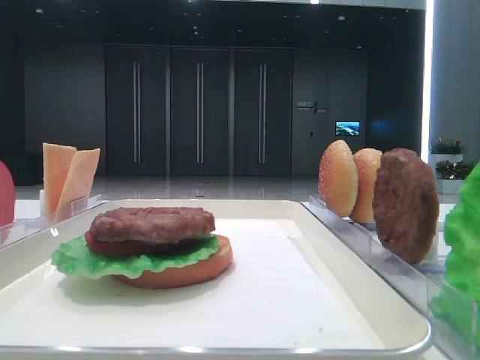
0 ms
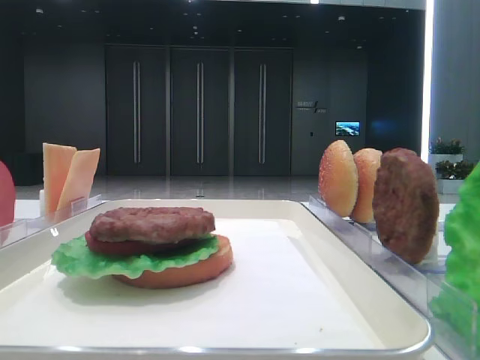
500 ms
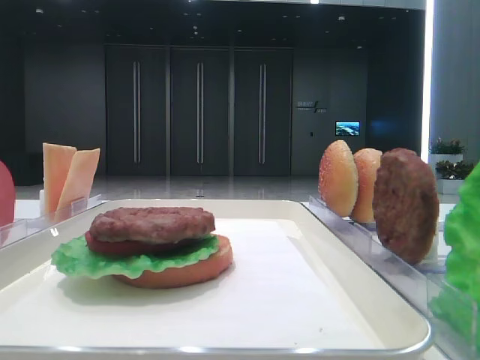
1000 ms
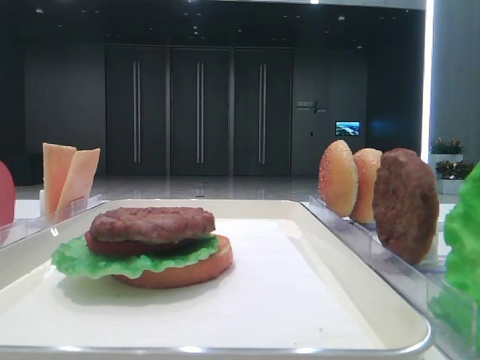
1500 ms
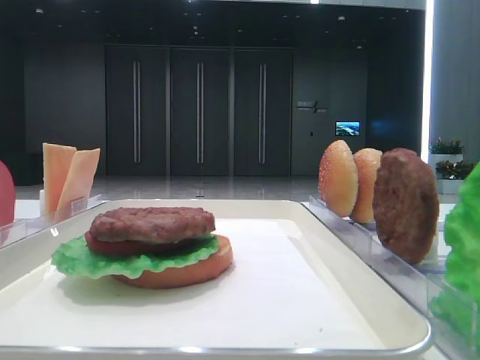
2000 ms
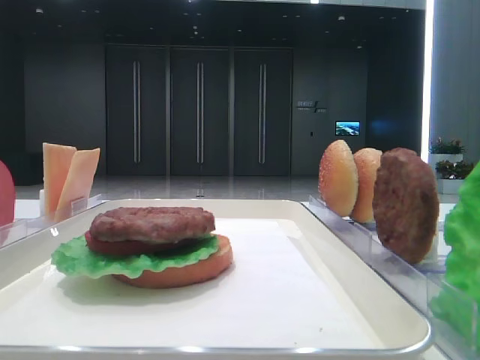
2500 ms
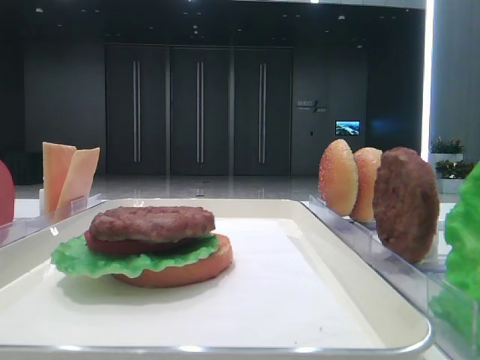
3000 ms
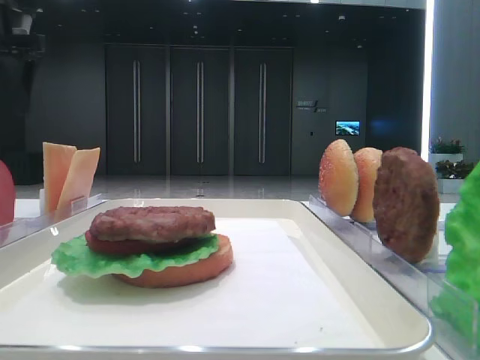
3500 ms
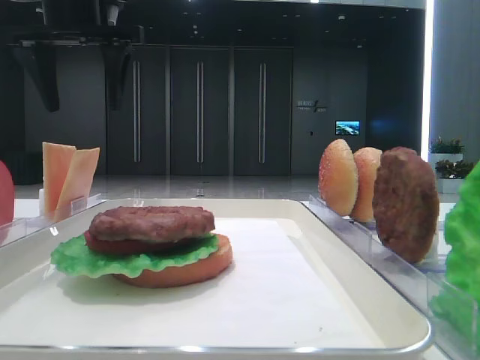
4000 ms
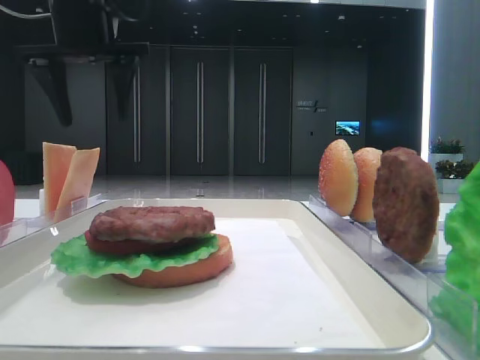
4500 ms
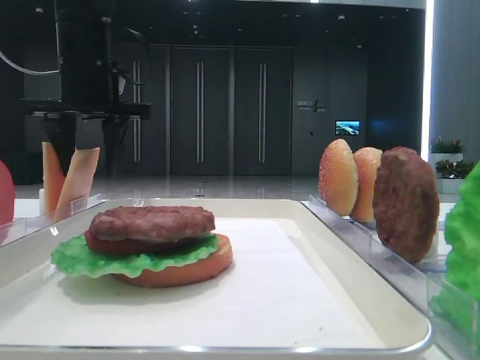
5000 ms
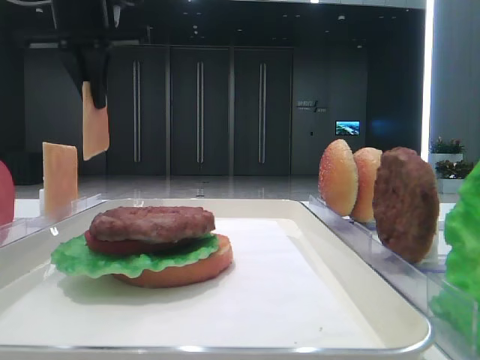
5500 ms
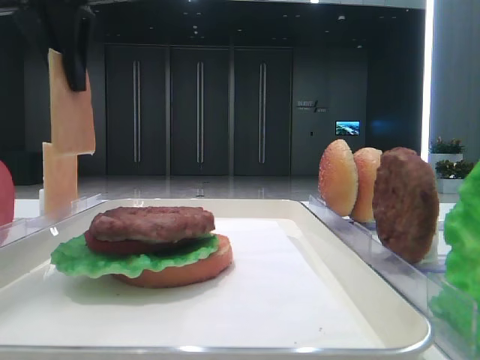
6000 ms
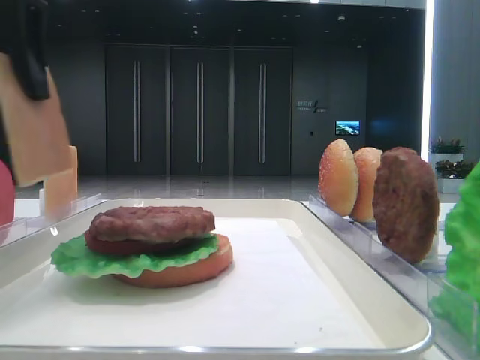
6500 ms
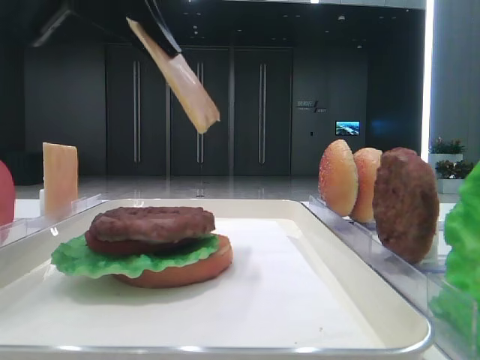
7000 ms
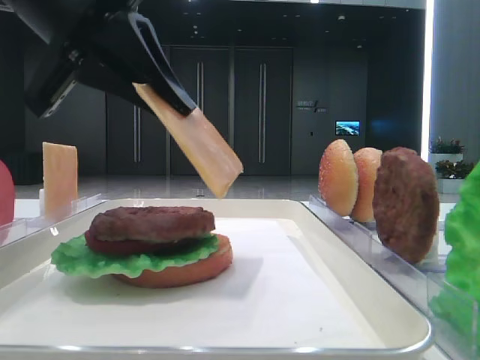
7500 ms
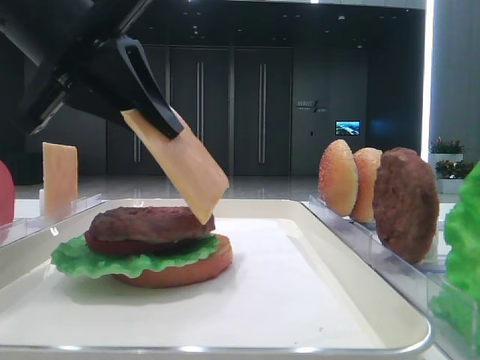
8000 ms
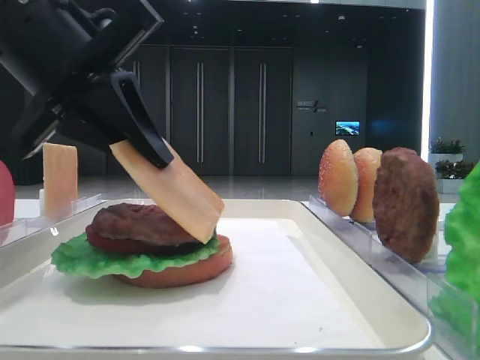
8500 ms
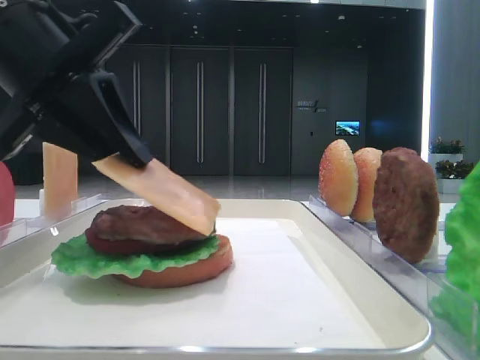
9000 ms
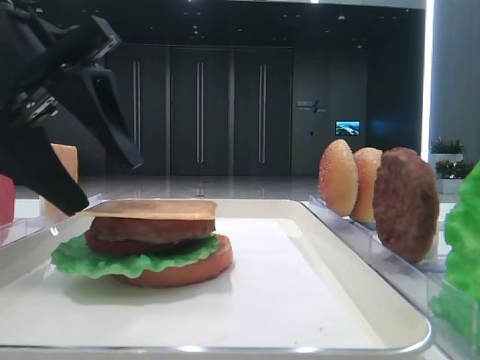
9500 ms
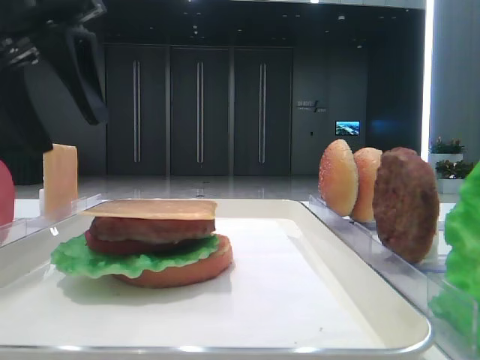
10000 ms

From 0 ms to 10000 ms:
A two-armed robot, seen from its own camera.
Step, from 0 ms to 5000 ms: Pick up the cheese slice with the left hand.
Step, from 5500 ms to 9000 ms: Place the cheese slice on the patty with the left hand.
From 2000 ms to 4000 ms: The left gripper shifts some 40 cm forward.
From 4000 ms to 6000 ms: The left gripper travels backward by roughly 10 cm, and closes.
From 6000 ms to 8000 ms: The left gripper heads downward and backward, covering approximately 10 cm.
From 8000 ms to 10000 ms: The left gripper ends up approximately 5 cm from where it was, and opens.

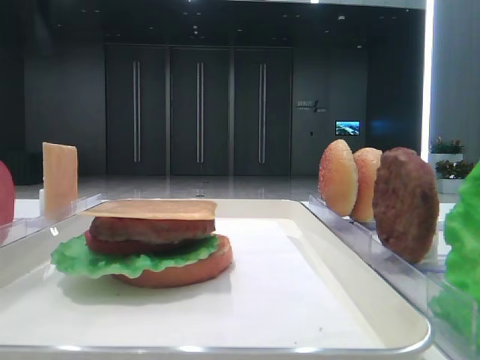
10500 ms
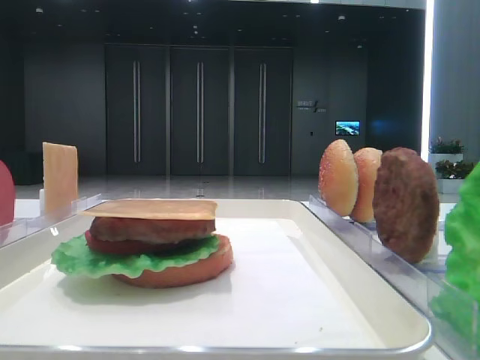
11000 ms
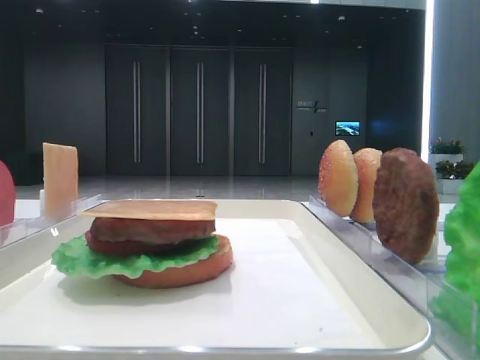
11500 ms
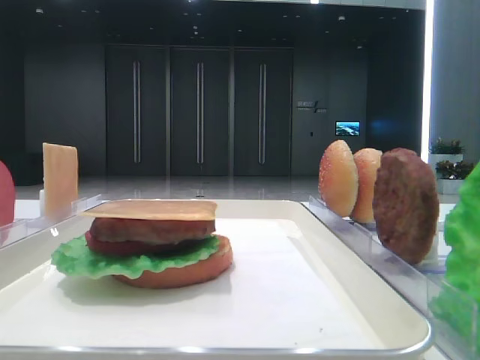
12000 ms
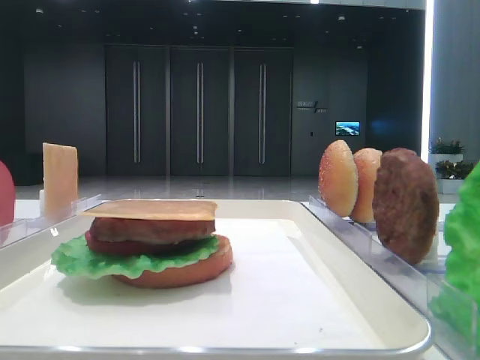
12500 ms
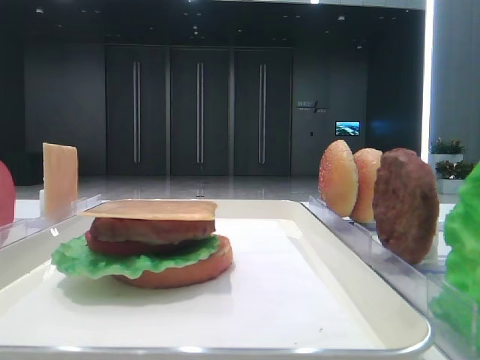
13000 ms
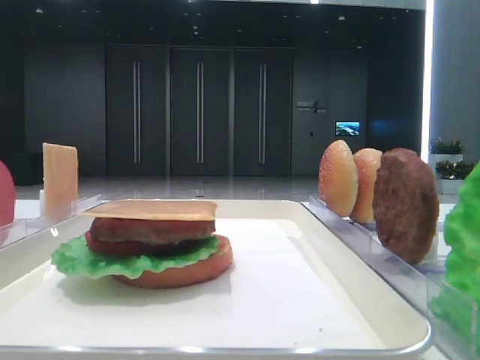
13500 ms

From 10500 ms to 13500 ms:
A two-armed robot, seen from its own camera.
From 10500 ms to 12000 ms: The left gripper shifts about 30 cm backward.

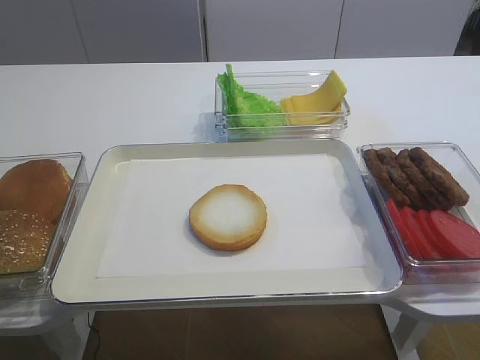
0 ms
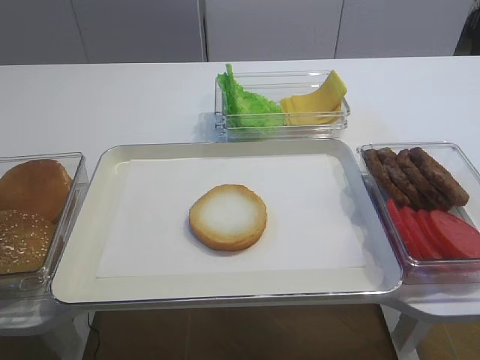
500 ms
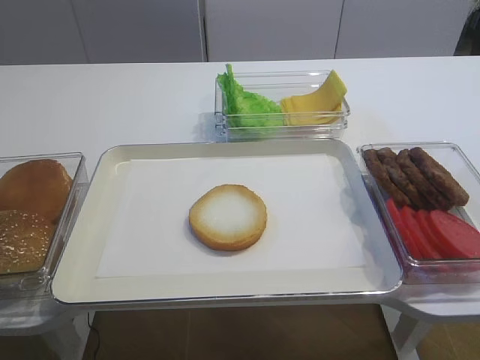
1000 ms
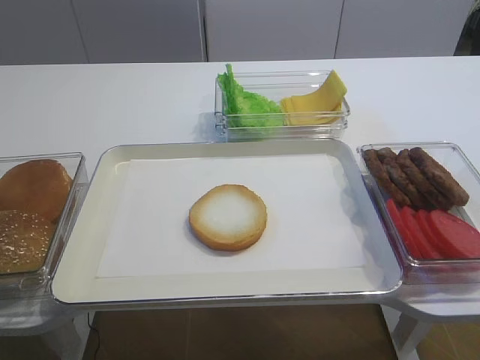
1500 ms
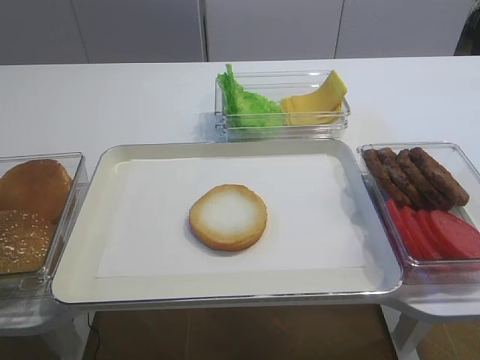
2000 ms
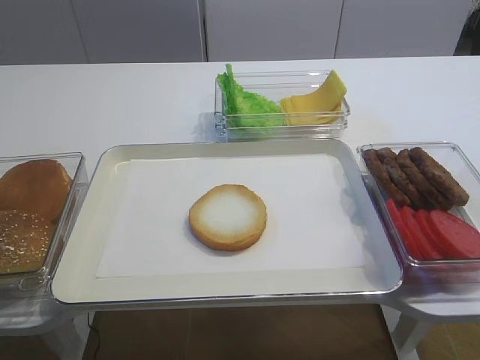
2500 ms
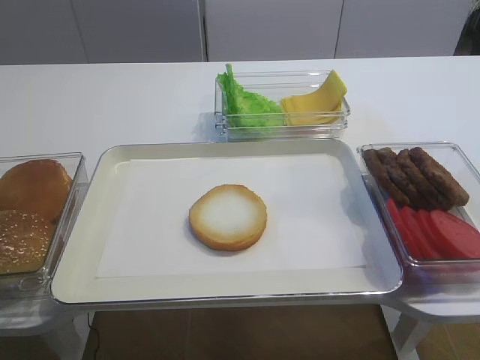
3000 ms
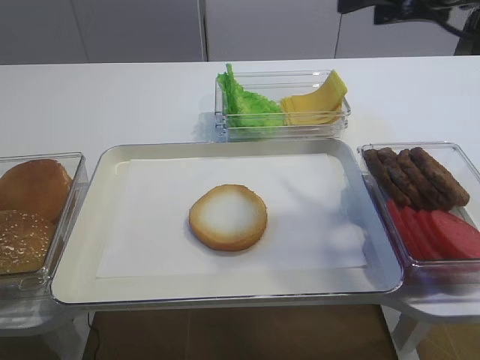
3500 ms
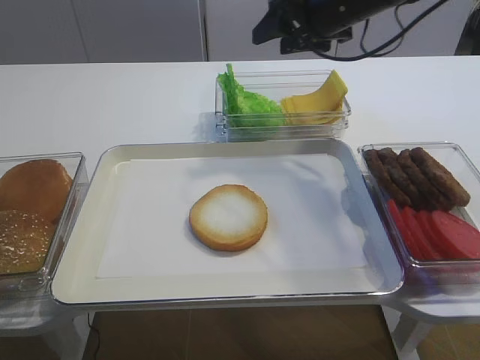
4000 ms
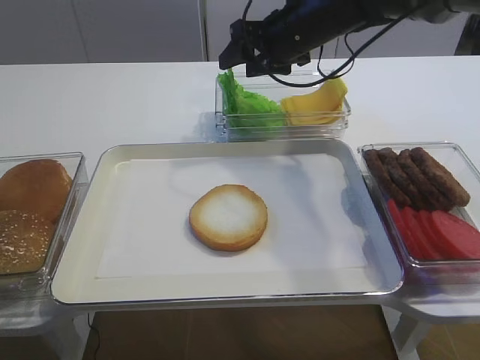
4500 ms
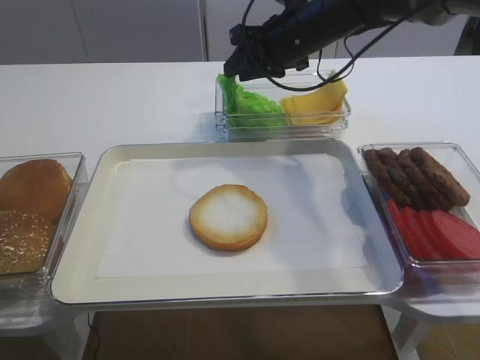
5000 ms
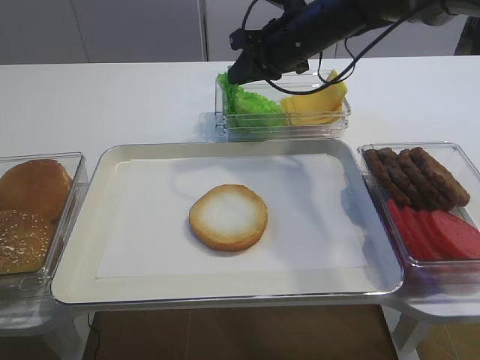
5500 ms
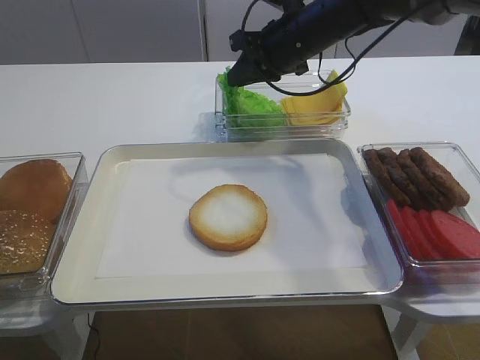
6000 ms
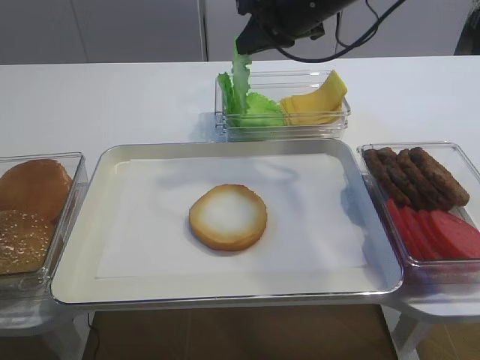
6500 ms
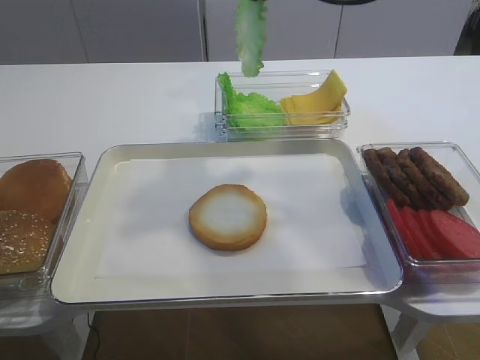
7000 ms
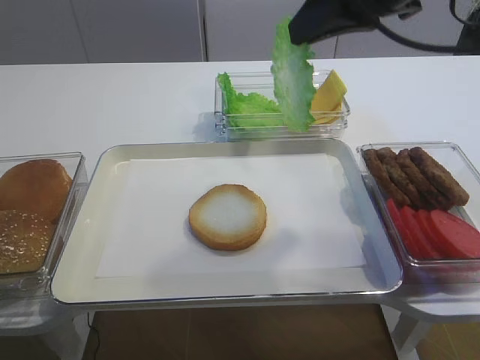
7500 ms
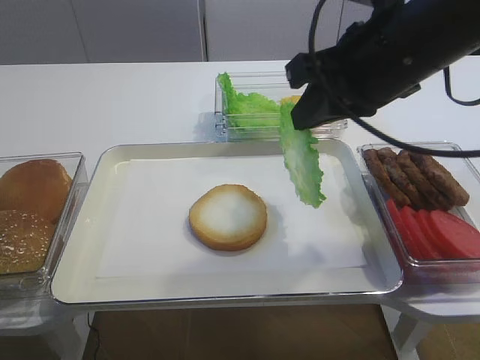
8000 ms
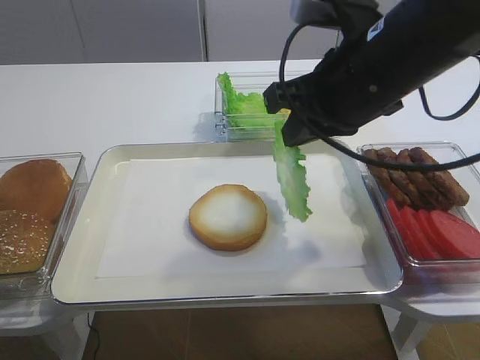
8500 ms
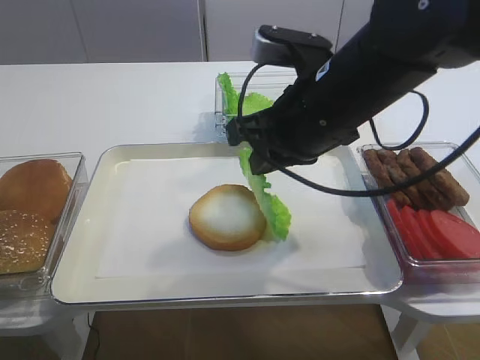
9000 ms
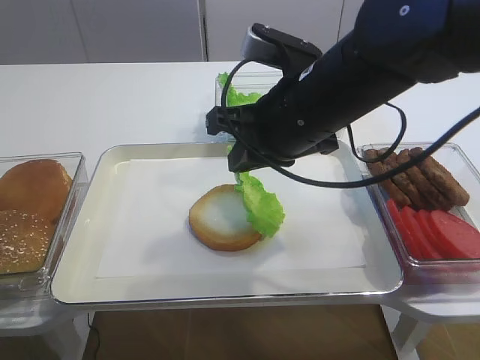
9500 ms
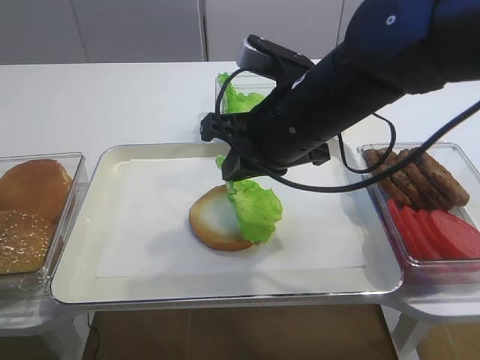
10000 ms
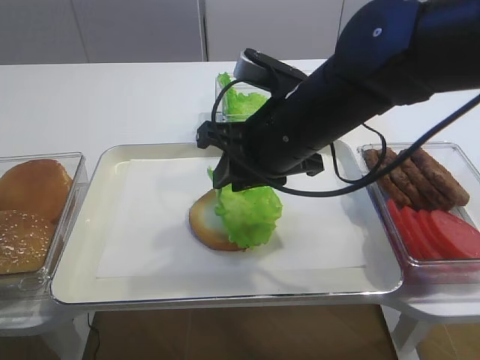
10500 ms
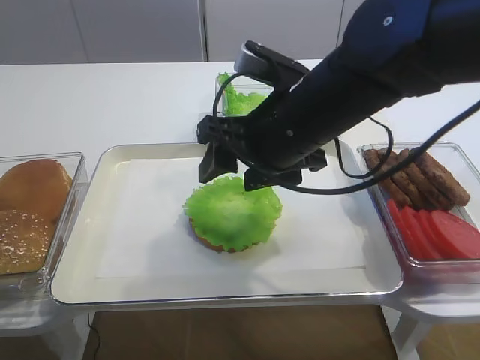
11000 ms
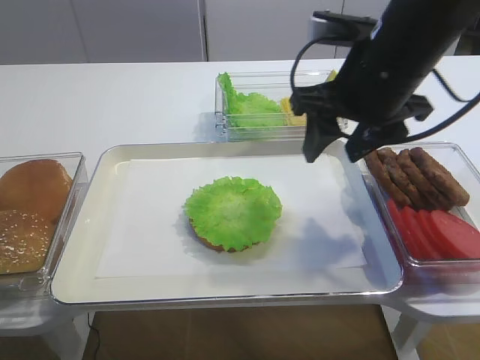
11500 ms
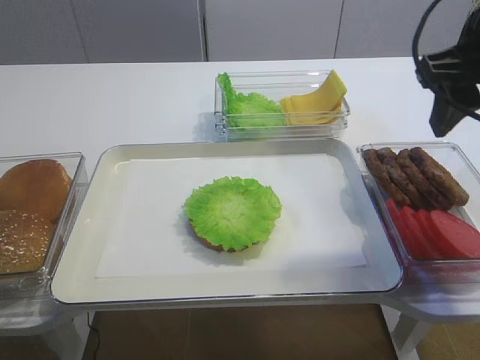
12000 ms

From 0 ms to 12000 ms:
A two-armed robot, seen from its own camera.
Step, from 0 ms to 6000 ms: Pick up the lettuce leaf with the right gripper.
Step, from 6500 ms to 10500 ms: Place the lettuce leaf on the bread slice with the right gripper.
From 2000 ms to 4000 ms: The right gripper travels forward by about 50 cm.
From 4000 ms to 6000 ms: The right gripper shifts by roughly 5 cm, and closes its fingers.
From 6000 ms to 8000 ms: The right gripper heads backward, covering about 20 cm.
From 8000 ms to 10000 ms: The right gripper travels to the left and downward by about 10 cm.
From 10000 ms to 12000 ms: The right gripper goes some 15 cm to the right and upward, and opens its fingers.

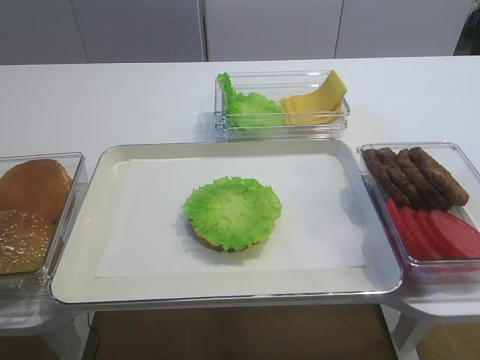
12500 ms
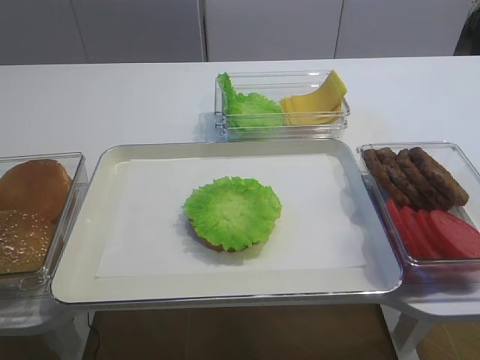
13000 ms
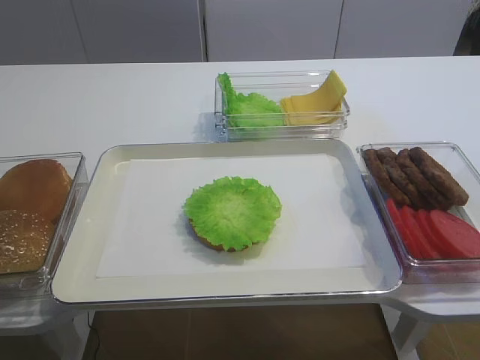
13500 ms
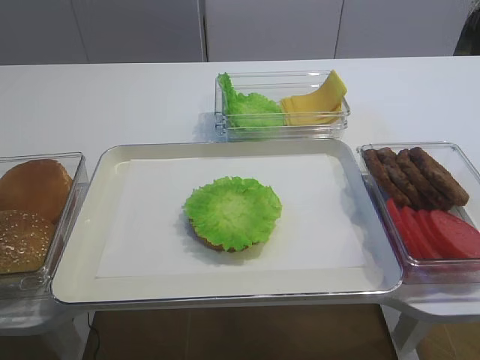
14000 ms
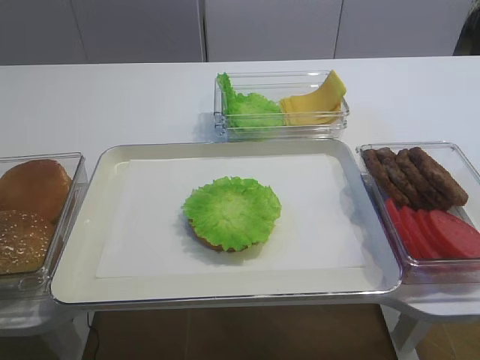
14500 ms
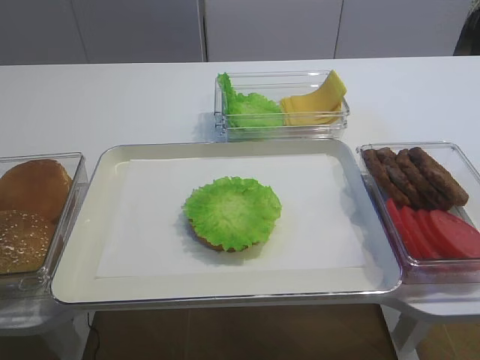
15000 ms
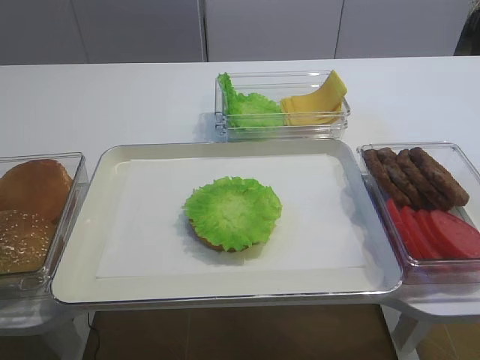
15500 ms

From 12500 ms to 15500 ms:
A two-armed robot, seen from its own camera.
From 12500 ms to 14000 ms: The right gripper travels backward and downward by some 15 cm.
